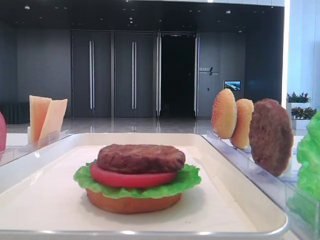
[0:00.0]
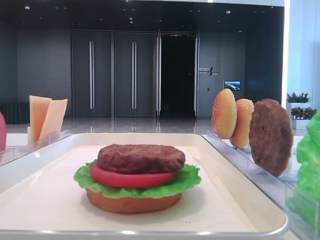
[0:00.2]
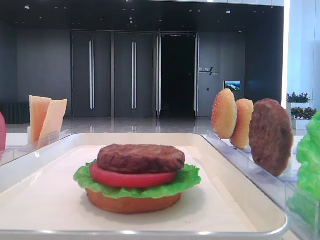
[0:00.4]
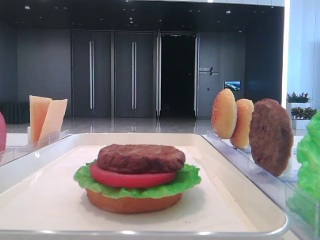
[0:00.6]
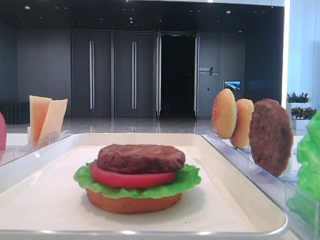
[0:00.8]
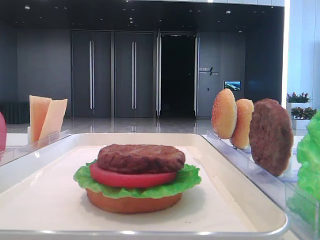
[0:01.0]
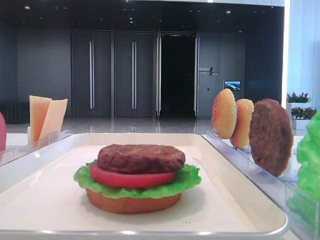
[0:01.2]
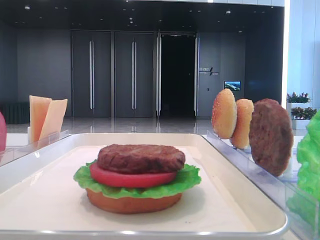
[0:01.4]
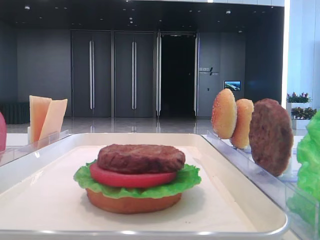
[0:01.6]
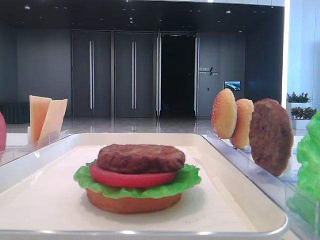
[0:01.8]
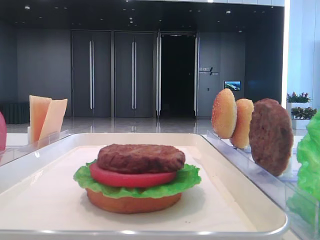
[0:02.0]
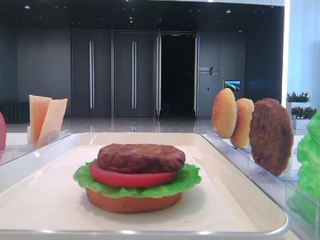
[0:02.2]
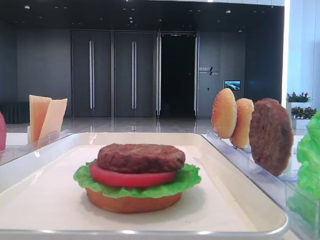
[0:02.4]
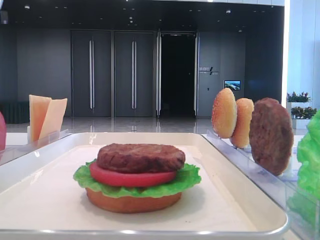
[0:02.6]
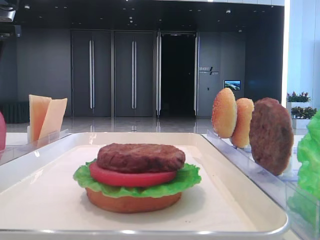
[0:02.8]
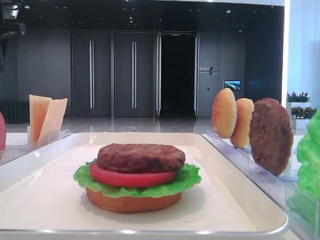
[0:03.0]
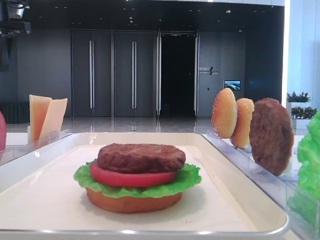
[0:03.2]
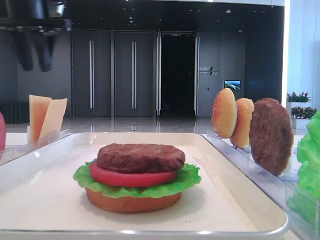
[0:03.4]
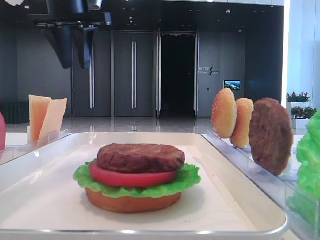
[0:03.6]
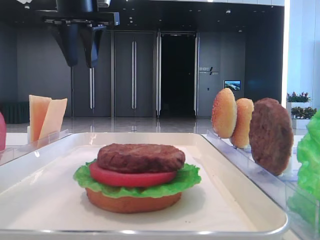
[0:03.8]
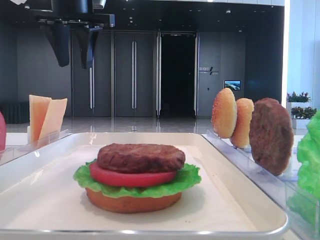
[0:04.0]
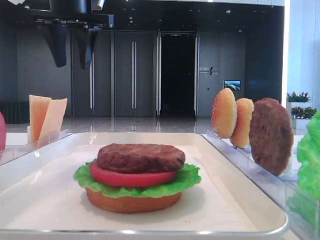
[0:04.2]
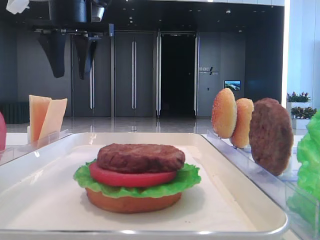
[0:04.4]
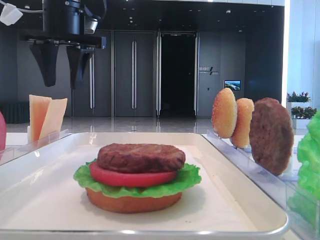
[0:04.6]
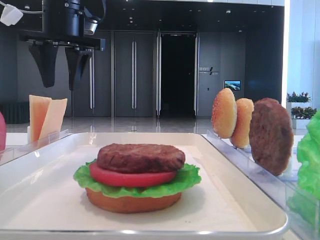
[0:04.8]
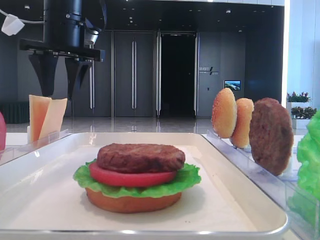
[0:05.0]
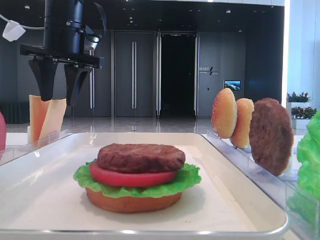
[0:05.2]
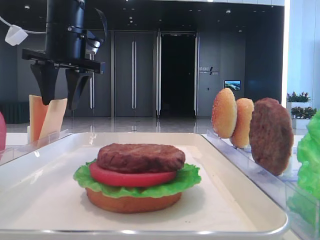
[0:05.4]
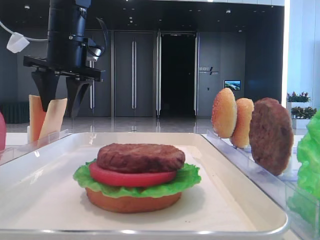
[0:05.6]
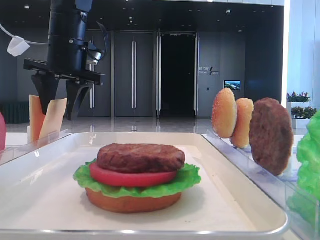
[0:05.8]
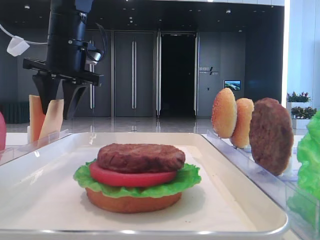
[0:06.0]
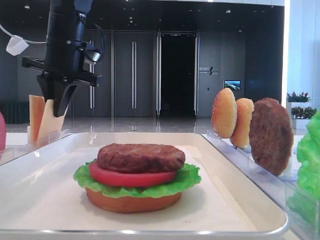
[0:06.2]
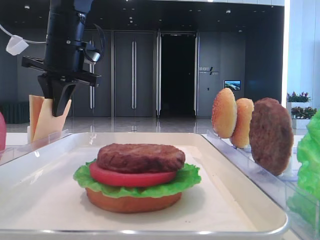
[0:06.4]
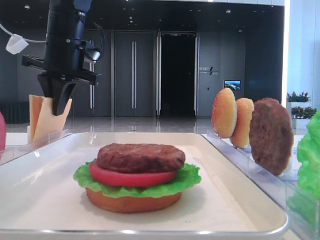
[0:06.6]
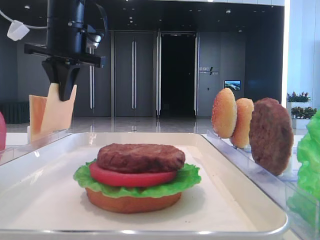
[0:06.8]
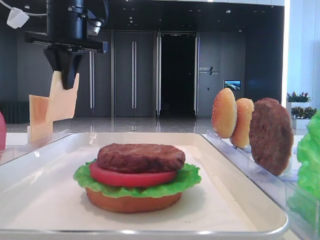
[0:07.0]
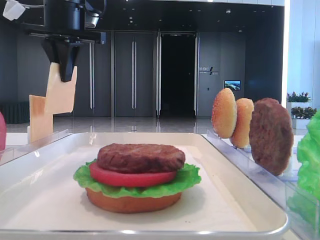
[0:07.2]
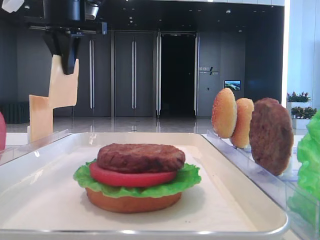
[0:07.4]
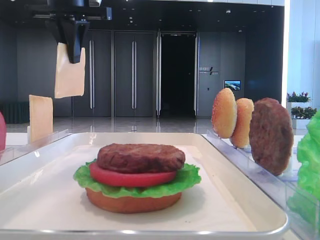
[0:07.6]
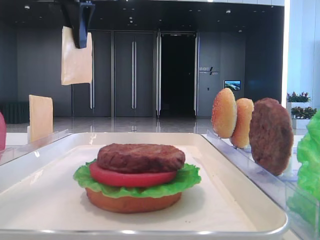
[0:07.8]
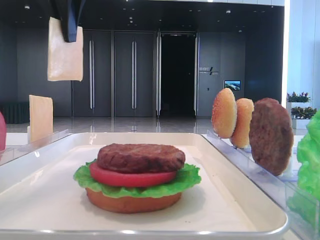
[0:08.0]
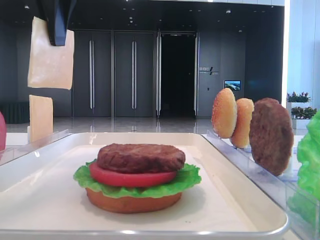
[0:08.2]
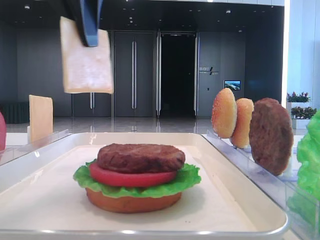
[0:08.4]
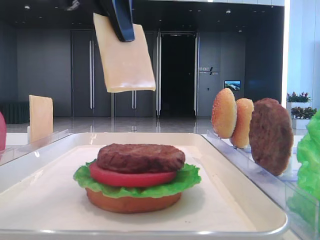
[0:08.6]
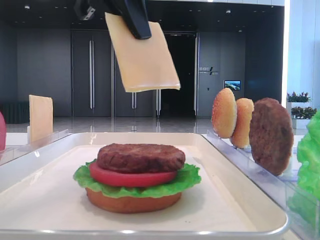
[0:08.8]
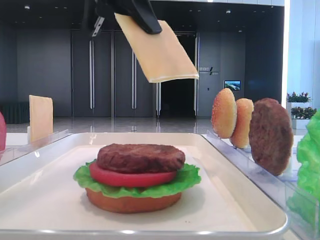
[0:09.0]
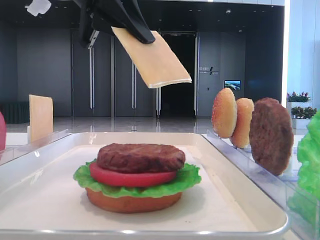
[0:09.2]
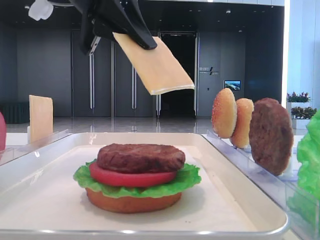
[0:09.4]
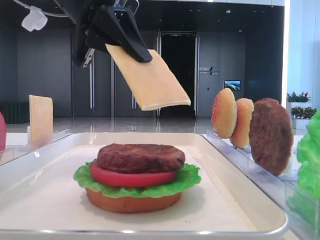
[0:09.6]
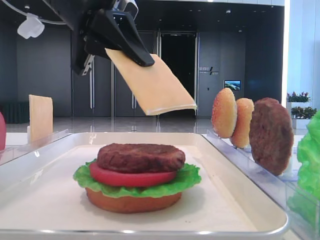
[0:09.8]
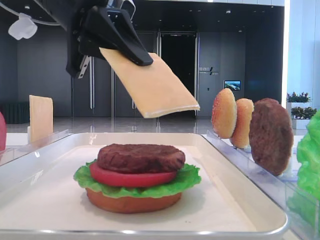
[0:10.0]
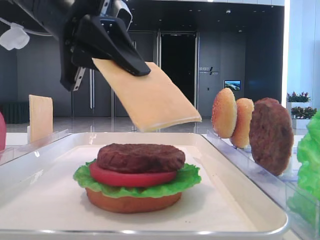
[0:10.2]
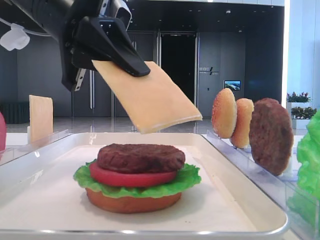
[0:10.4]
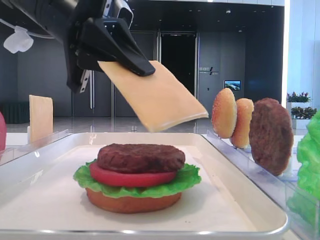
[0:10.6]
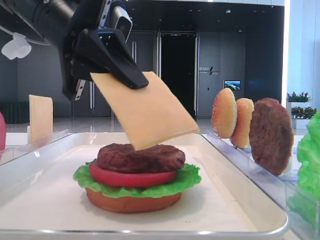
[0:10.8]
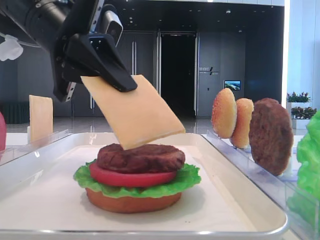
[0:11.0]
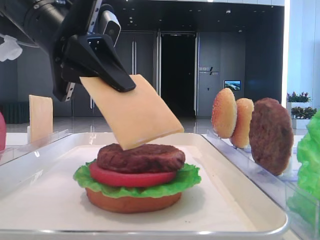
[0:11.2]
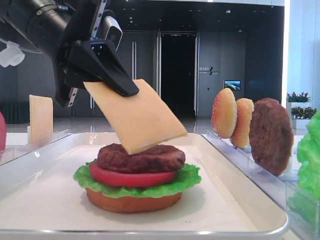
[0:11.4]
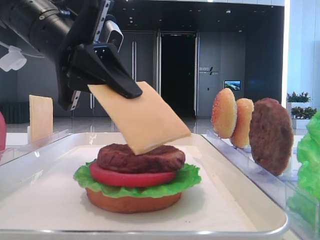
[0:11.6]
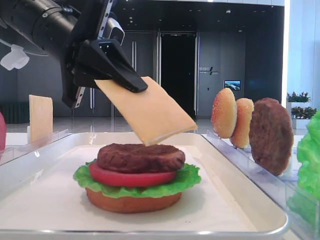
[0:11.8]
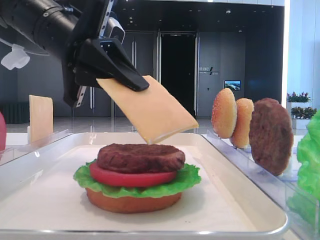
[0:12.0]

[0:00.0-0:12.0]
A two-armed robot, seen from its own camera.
Step, 0:00.0 to 0:06.2: Pick up the cheese slice with the left hand.
0:01.6 to 0:03.0: The left gripper heads forward, covering about 40 cm.
0:03.0 to 0:04.4: The left gripper heads to the right, covering approximately 15 cm.
0:04.4 to 0:06.0: The left gripper heads downward, covering roughly 5 cm.
0:06.0 to 0:07.6: The left gripper moves upward, some 10 cm, and closes its fingers.
0:07.6 to 0:09.0: The left gripper heads backward and to the right, covering roughly 10 cm.
0:09.0 to 0:10.4: The left gripper shifts approximately 10 cm downward.
0:10.4 to 0:12.0: The grippers move only a little.

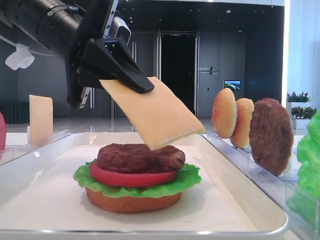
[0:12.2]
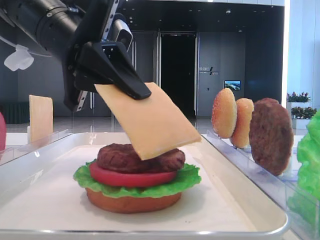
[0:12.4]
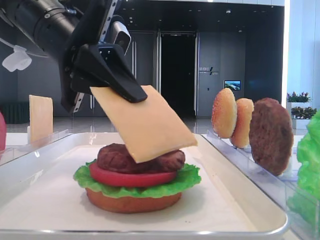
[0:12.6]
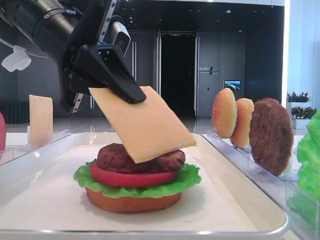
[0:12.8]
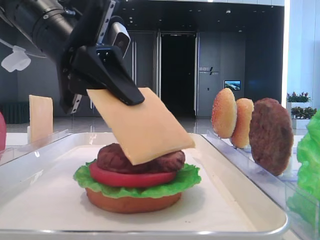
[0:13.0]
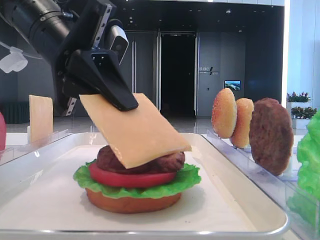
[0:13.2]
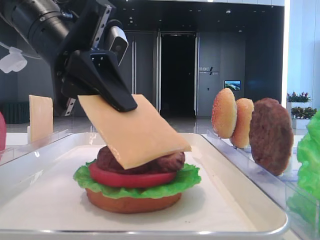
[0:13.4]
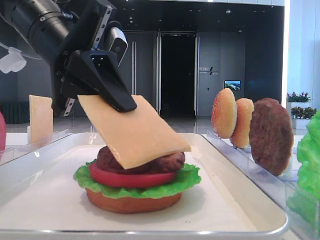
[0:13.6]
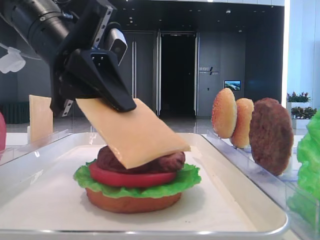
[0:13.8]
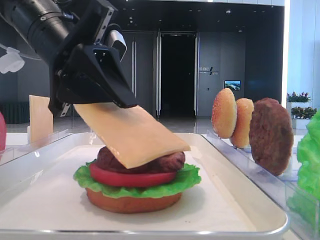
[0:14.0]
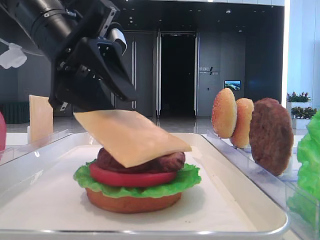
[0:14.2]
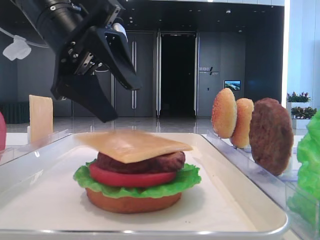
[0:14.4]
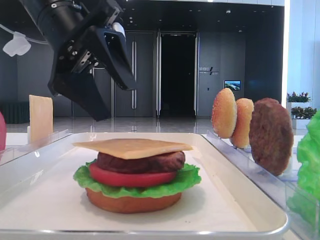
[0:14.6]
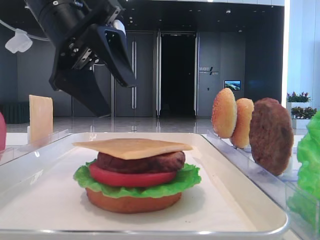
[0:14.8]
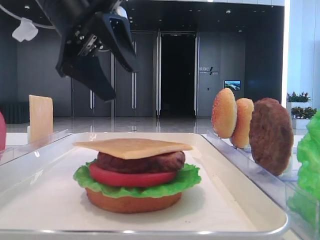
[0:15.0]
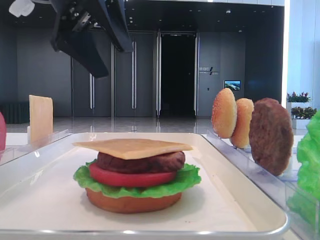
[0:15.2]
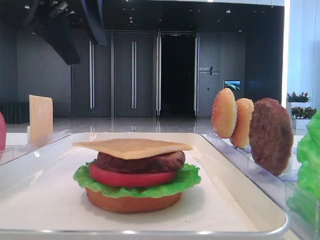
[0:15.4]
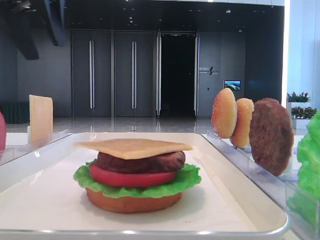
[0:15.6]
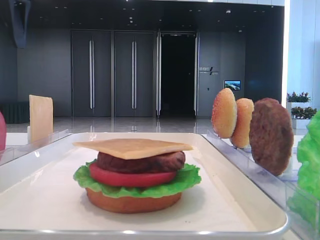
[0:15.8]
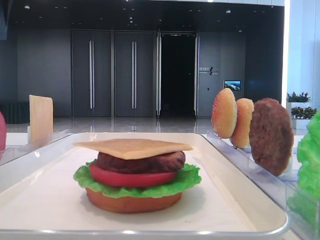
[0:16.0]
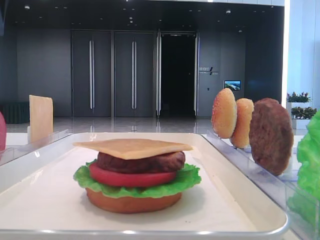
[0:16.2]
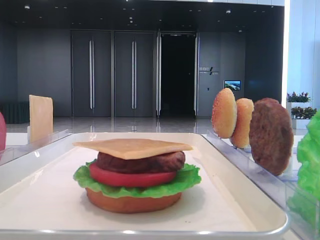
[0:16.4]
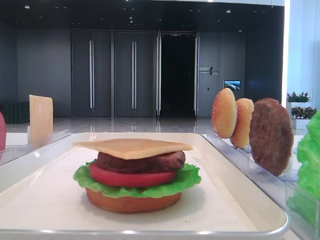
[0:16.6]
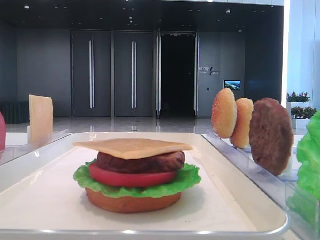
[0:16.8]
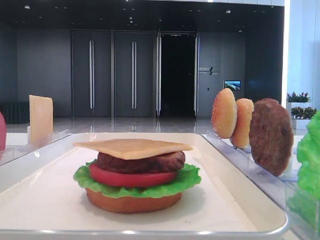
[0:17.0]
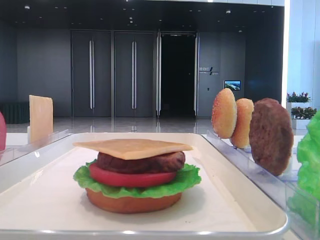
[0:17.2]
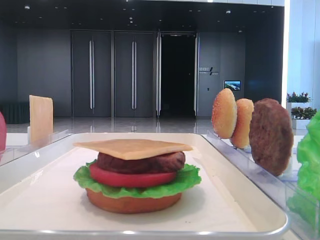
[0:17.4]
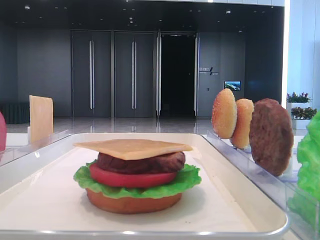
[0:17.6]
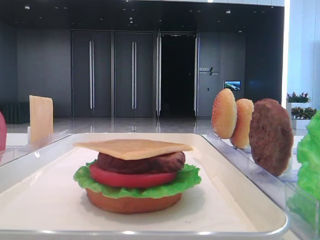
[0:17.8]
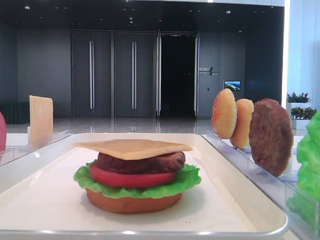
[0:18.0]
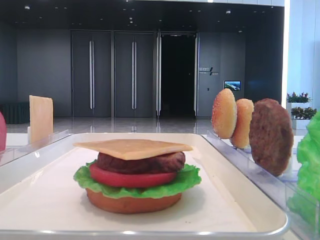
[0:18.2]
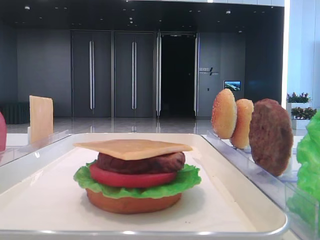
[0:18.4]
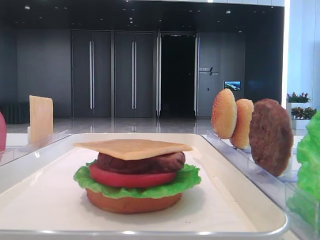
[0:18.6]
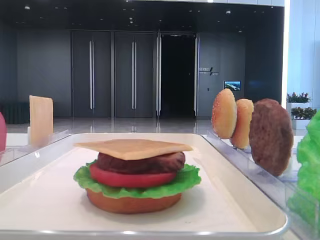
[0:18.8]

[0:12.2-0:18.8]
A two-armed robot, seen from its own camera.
Step, 0:12.2 to 0:14.6: Place the cheese slice on the patty with the left hand.
0:12.2 to 0:13.8: The grippers stay close to where they were, moving slightly.
0:13.8 to 0:15.4: The left gripper shifts some 15 cm upward and forward, and opens its fingers.
0:15.4 to 0:17.2: The left gripper is displaced to the left, backward and upward by approximately 20 cm.

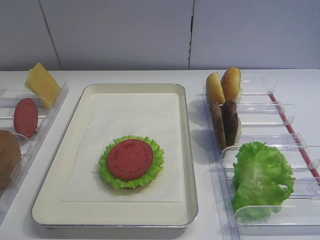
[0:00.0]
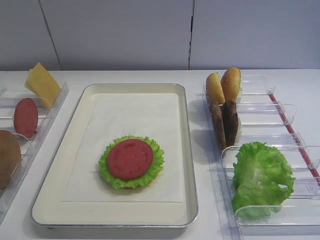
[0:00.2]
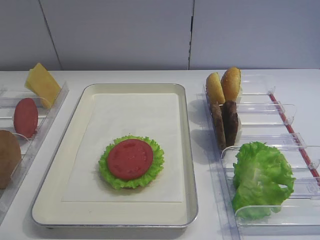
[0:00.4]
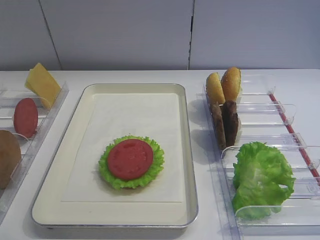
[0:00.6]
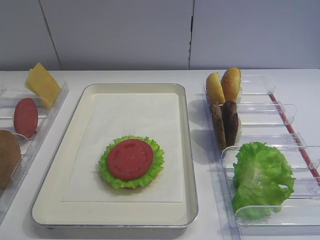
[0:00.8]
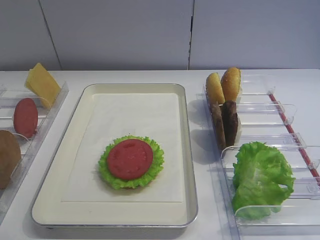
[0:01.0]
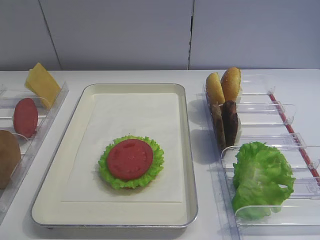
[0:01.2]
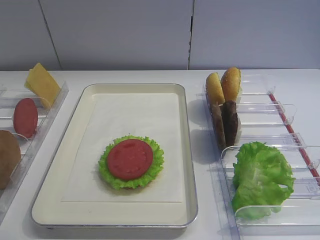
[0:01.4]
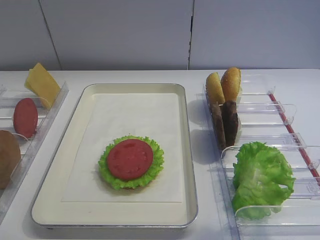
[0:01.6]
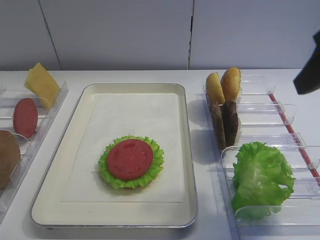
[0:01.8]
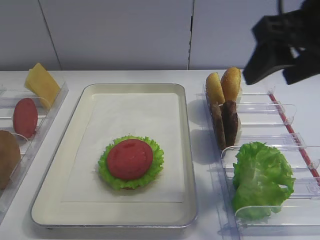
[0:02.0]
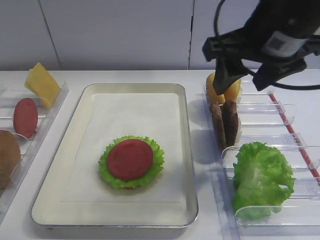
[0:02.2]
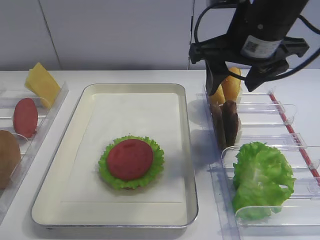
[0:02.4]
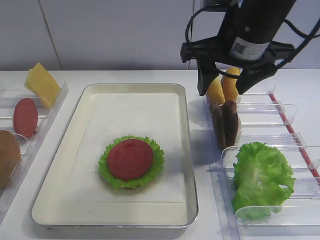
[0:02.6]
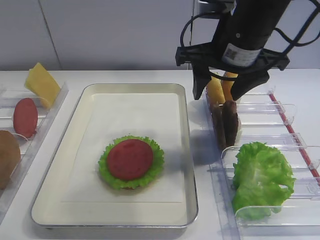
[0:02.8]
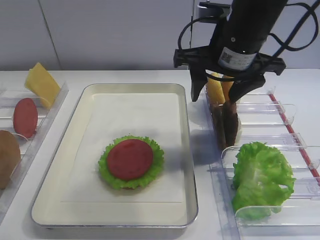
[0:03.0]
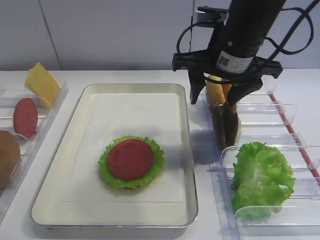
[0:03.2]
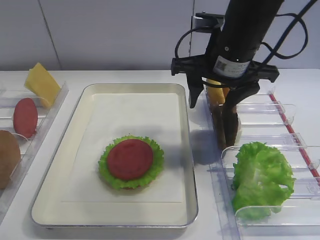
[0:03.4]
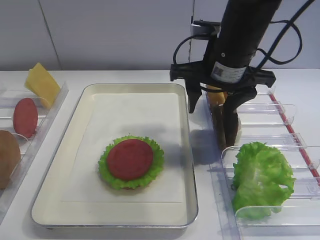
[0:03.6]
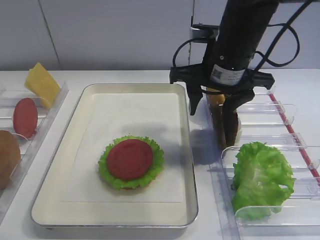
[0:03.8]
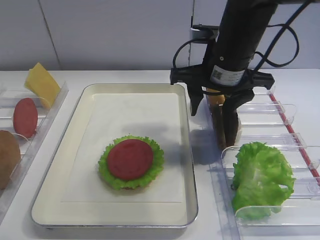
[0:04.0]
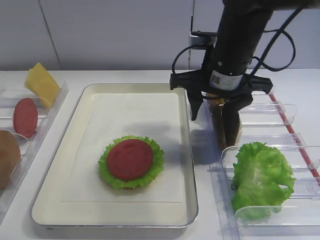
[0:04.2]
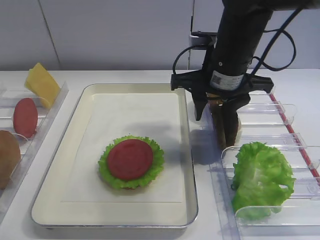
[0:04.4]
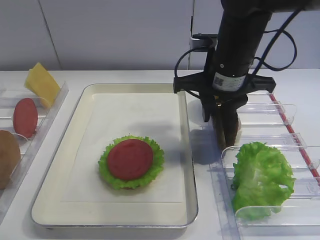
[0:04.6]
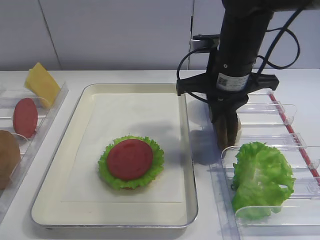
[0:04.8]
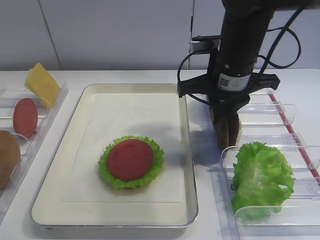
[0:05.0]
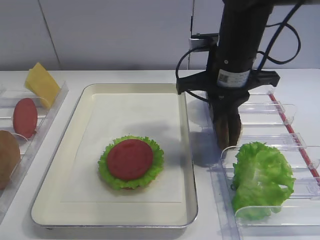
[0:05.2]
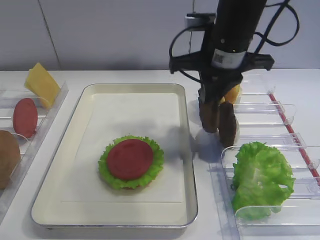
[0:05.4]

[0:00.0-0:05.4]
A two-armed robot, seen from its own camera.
Step, 0:00.0 to 0:05.4: Pick up the cutlet with the right gripper.
0:01.4 to 0:02.8: The right gripper shifts roughly 25 cm forward and to the left.
0:02.8 to 0:04.0: The grippers move only a little.
0:04.0 to 0:05.4: The right gripper closes up.
